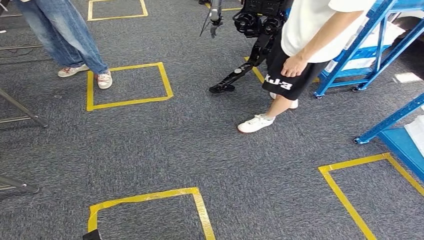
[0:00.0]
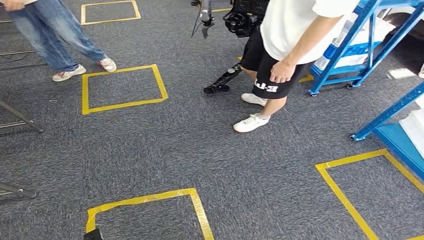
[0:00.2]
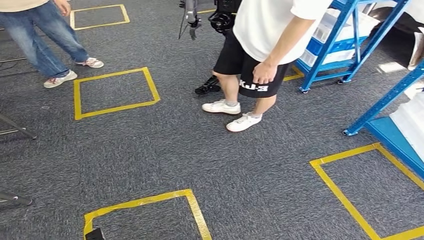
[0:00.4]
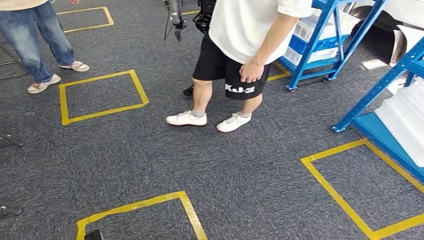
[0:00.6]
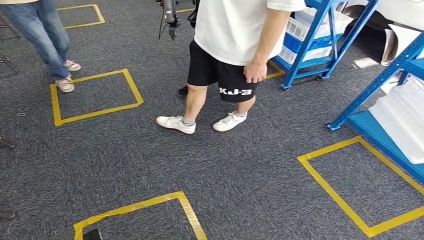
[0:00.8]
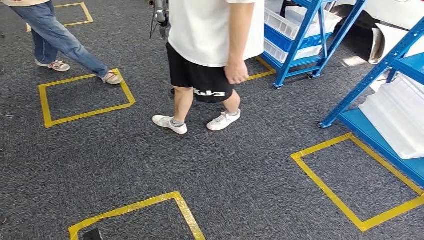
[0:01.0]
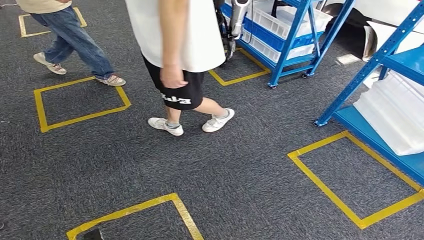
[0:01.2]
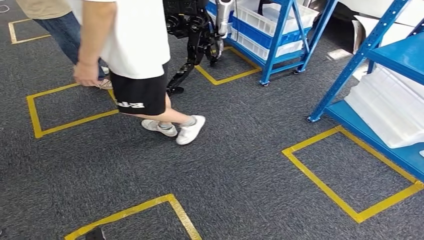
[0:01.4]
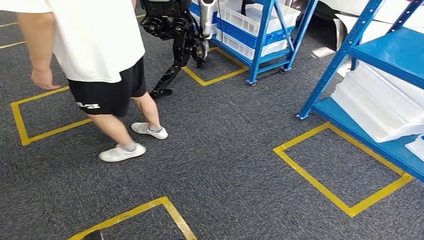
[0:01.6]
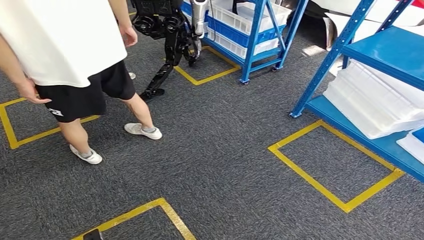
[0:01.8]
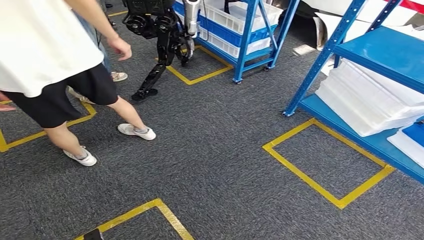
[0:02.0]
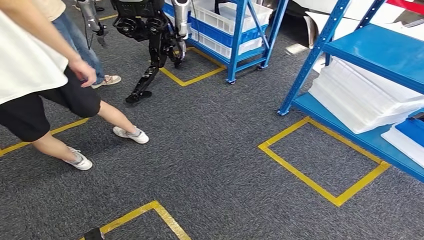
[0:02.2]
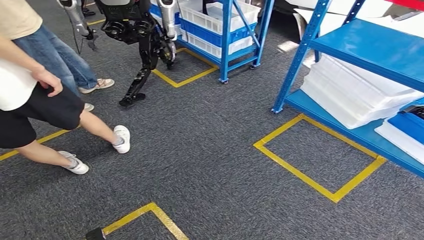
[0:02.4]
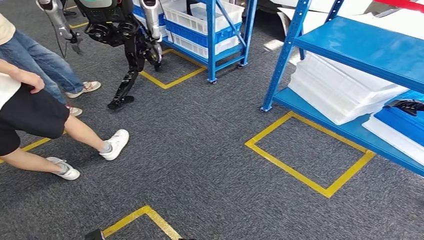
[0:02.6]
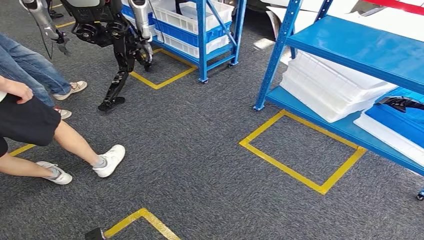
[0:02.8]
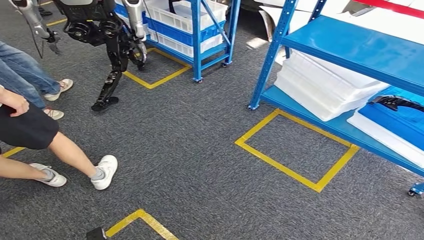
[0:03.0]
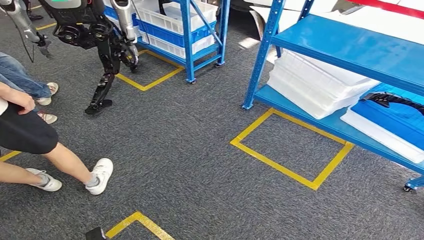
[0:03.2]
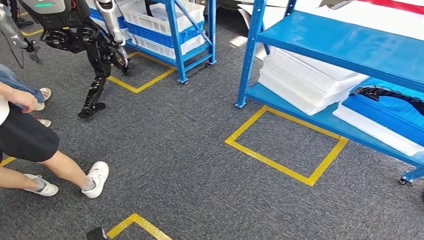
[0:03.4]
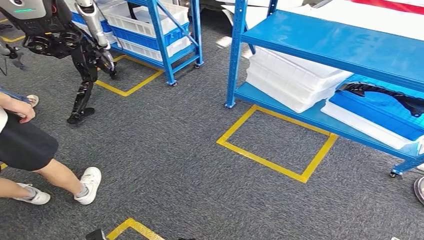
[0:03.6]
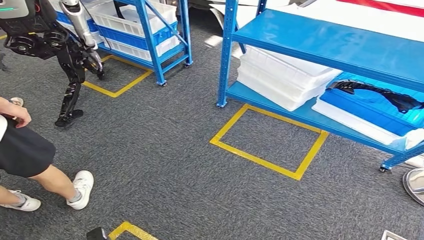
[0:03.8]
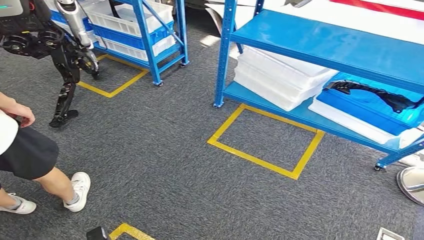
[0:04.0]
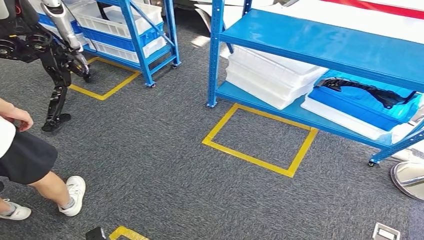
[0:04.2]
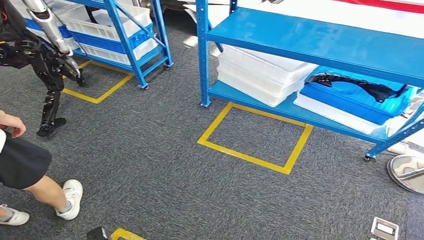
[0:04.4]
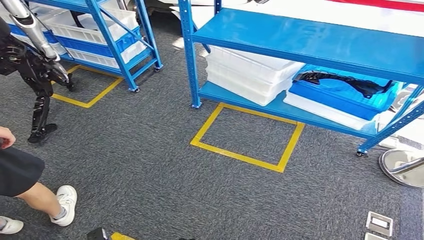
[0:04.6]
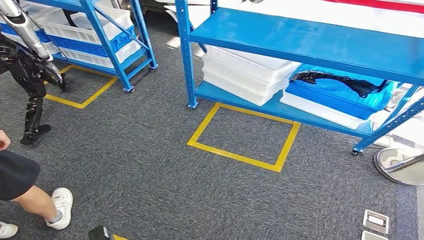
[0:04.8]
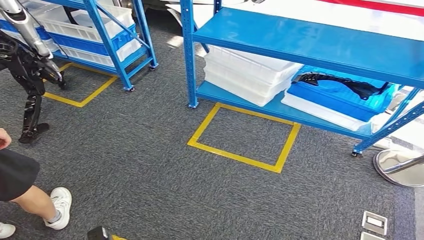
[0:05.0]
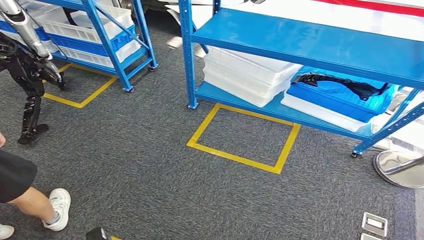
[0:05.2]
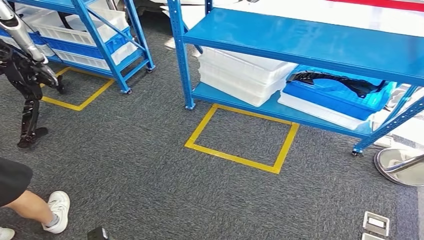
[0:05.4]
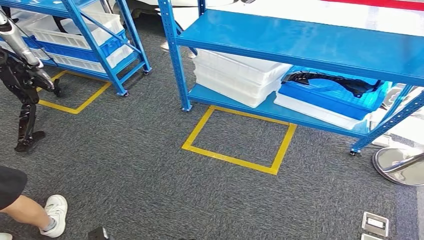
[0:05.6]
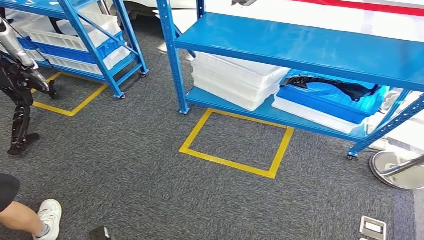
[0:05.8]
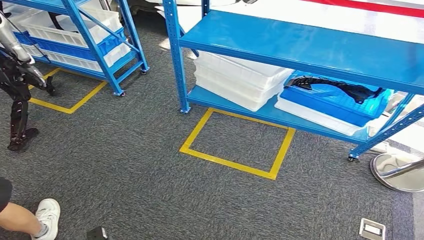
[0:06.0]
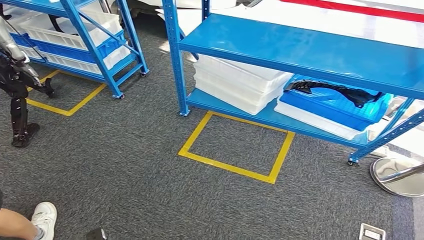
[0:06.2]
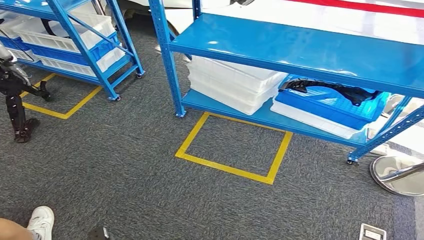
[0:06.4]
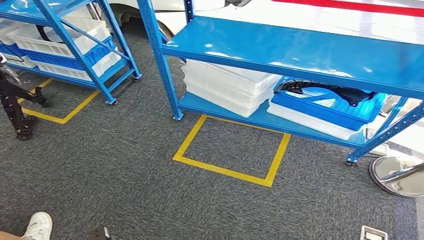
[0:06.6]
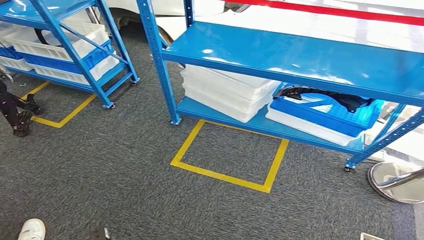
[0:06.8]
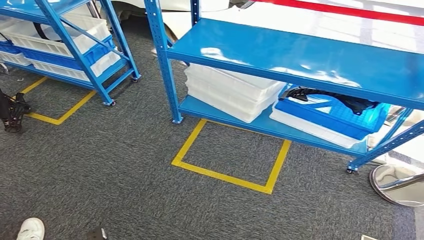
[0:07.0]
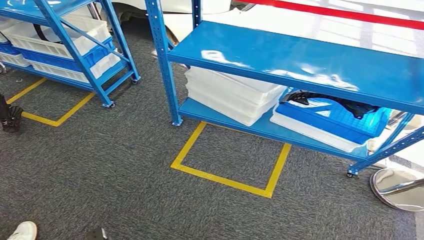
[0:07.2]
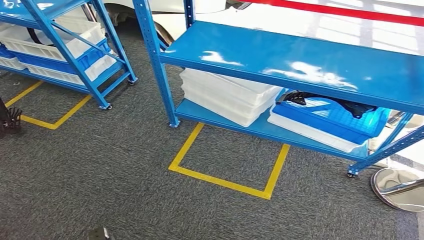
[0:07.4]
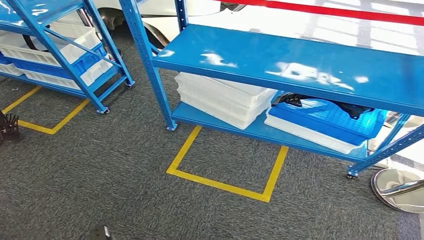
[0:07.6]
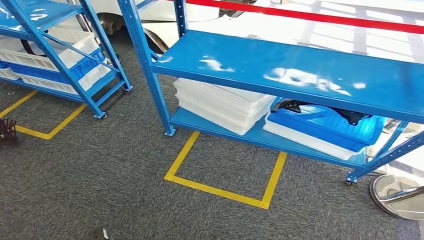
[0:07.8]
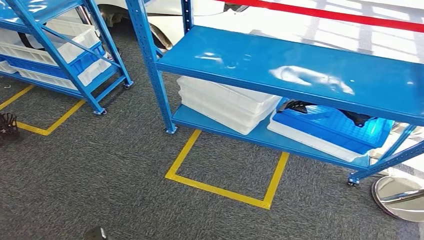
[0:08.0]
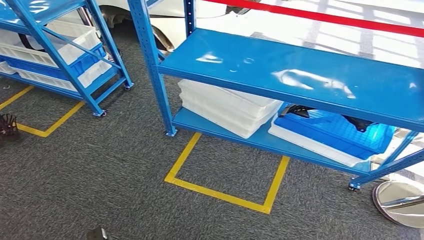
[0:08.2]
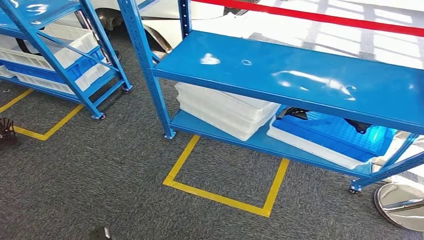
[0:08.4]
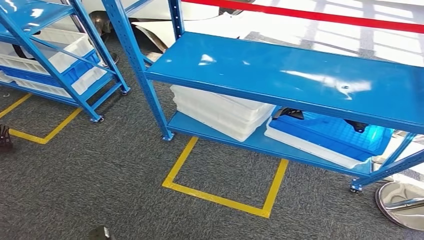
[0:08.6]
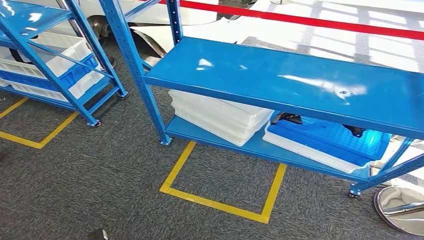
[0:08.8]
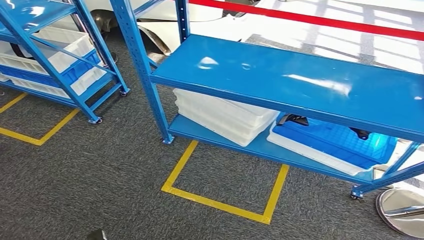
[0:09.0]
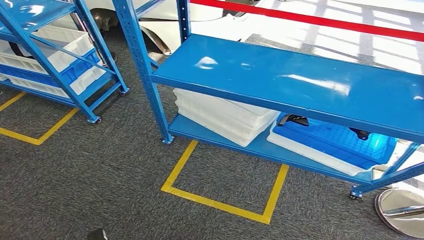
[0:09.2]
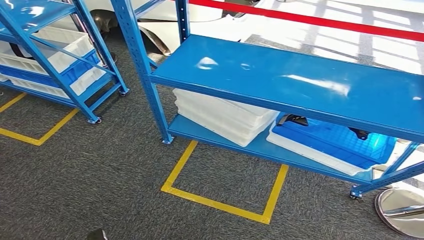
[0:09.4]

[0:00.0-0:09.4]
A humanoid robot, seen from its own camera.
Step, 0:00.0 to 0:09.4: Return to the initial position at the shelf.
